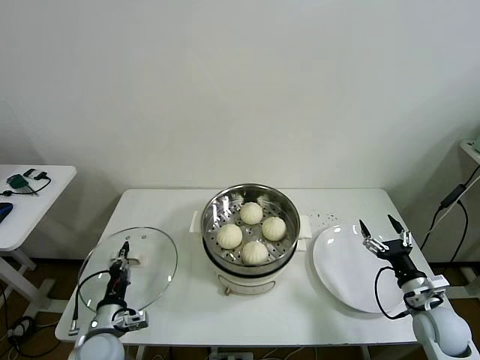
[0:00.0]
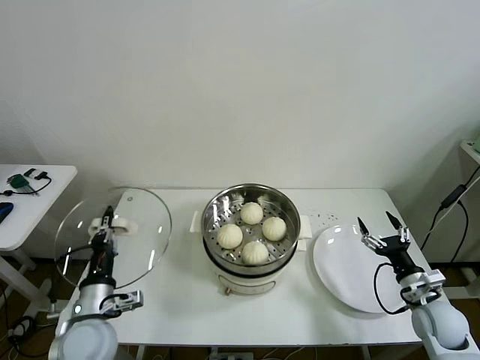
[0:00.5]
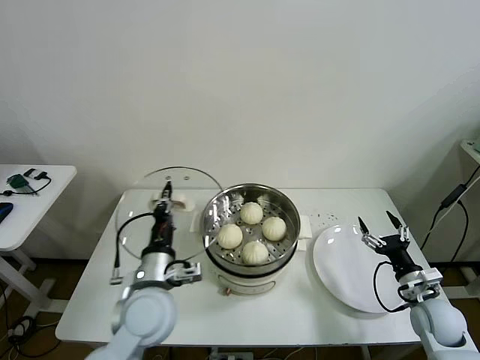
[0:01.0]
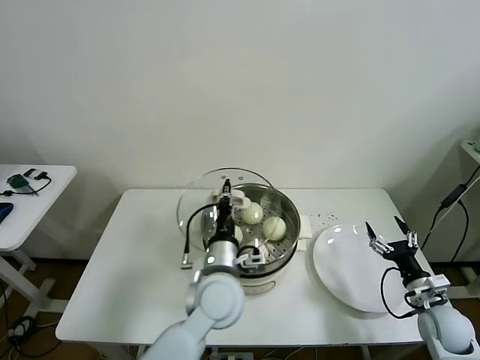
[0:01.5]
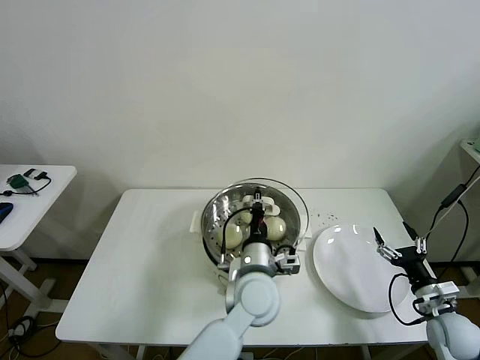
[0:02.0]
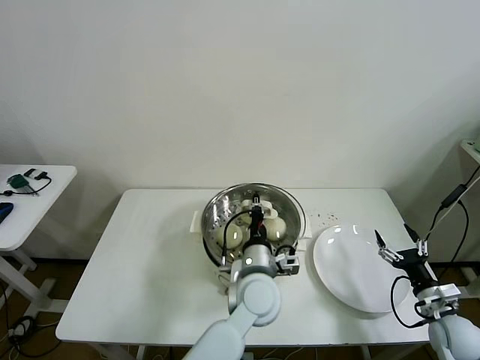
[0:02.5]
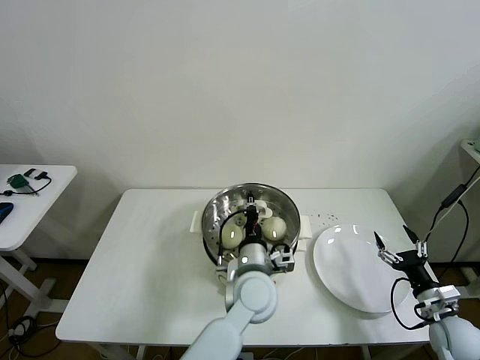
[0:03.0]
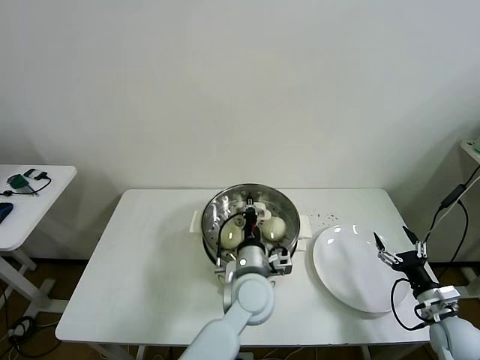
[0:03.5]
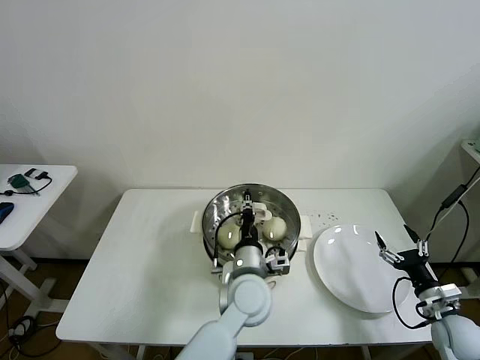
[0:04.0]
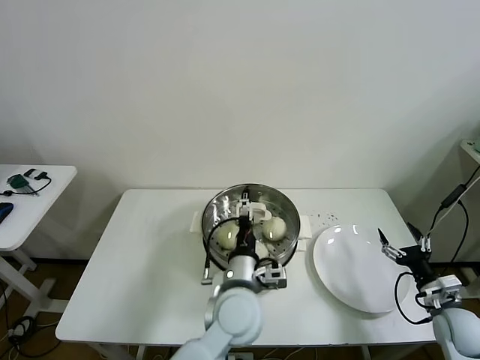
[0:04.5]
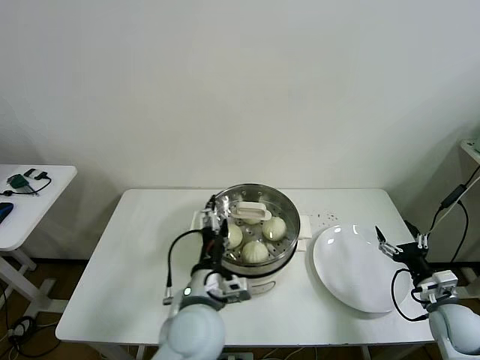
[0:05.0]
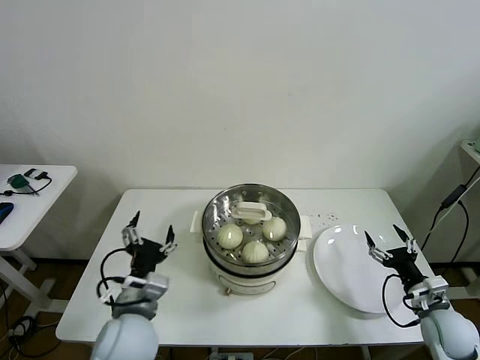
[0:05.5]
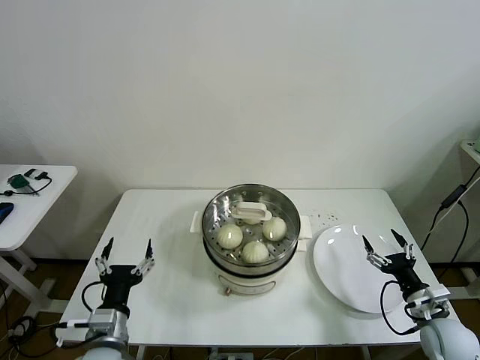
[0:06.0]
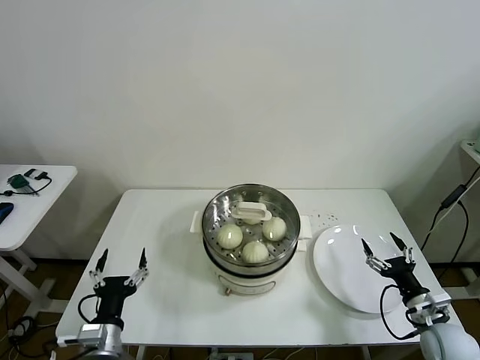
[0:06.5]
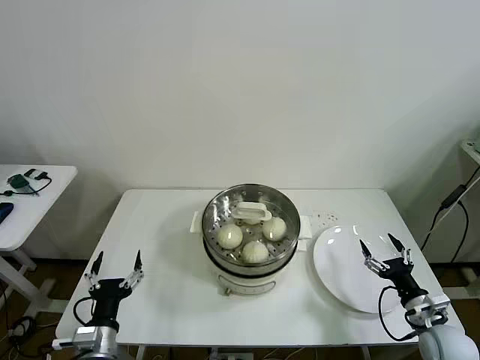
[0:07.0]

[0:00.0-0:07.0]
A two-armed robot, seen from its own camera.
Task of the whole recording: take steamed baozi put them in steamer then cover it.
Step, 0:00.0 to 0:04.5: Place the pot lid on the steamer with left gripper.
0:00.0 to 0:02.0: The left gripper travels to the right and upward by about 35 cm.
0:02.0 to 0:03.5: The grippers move only a little.
0:03.5 to 0:05.0: The left gripper shifts approximately 10 cm to the left and backward, and opens.
0:05.0 to 0:07.0: The left gripper heads to the left and downward, covering approximately 25 cm, while the right gripper shifts by about 5 cm.
